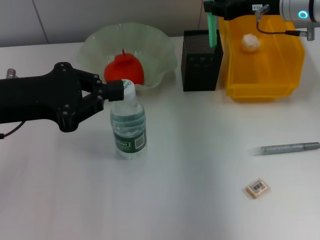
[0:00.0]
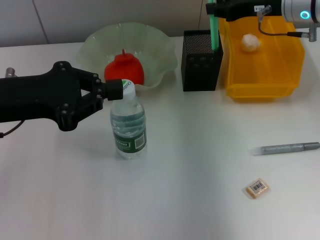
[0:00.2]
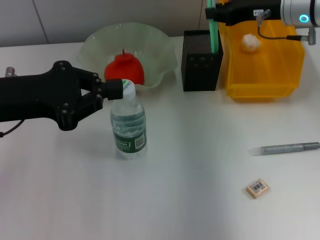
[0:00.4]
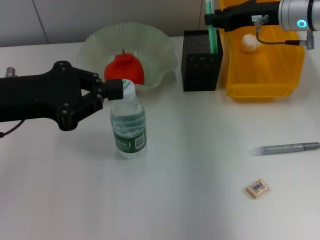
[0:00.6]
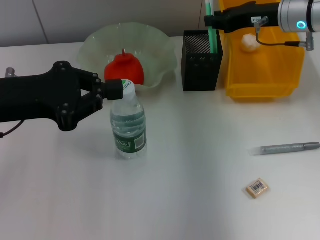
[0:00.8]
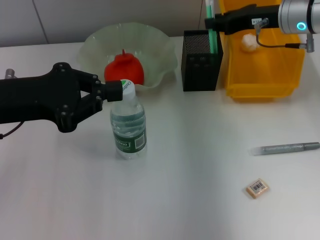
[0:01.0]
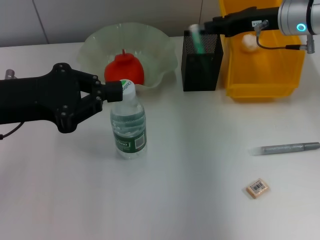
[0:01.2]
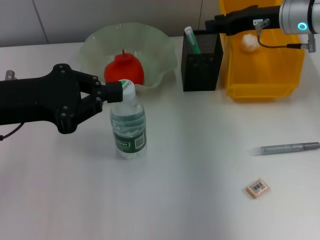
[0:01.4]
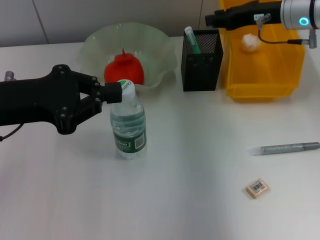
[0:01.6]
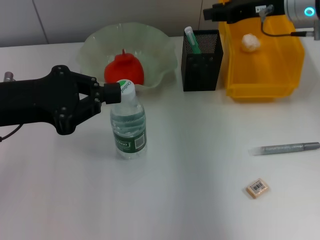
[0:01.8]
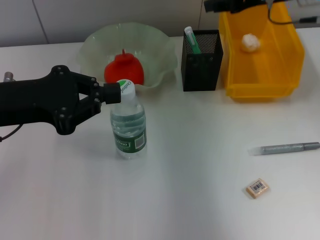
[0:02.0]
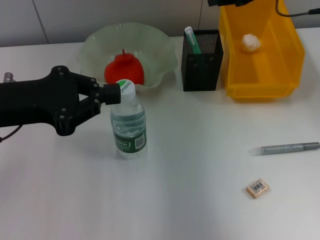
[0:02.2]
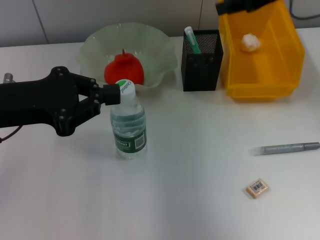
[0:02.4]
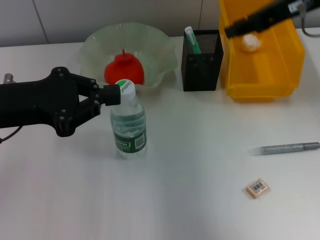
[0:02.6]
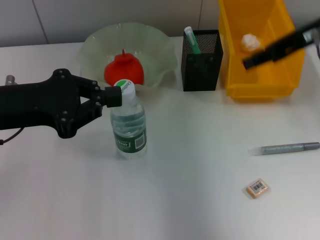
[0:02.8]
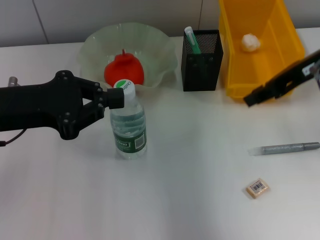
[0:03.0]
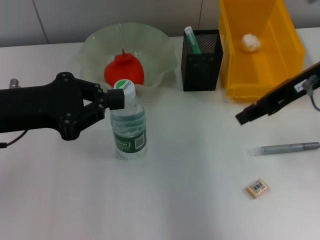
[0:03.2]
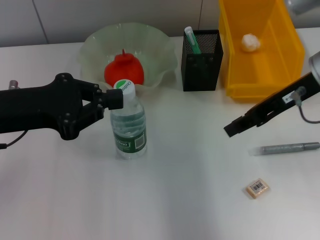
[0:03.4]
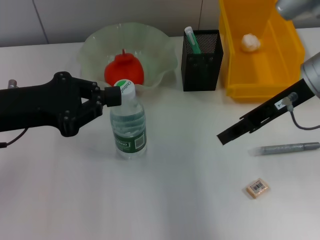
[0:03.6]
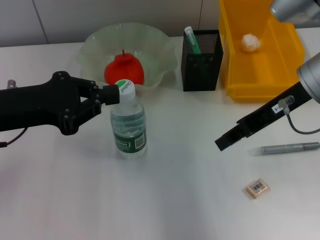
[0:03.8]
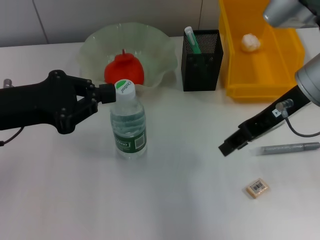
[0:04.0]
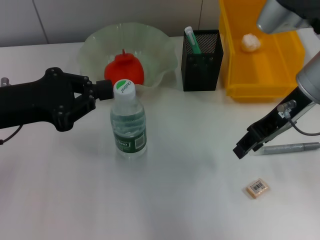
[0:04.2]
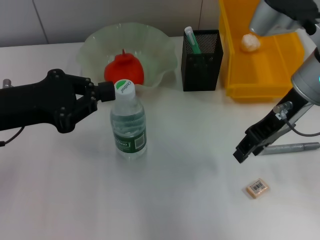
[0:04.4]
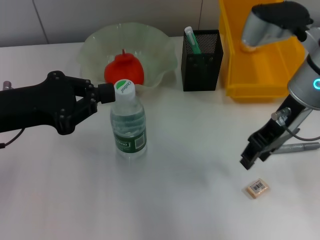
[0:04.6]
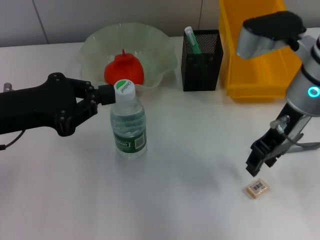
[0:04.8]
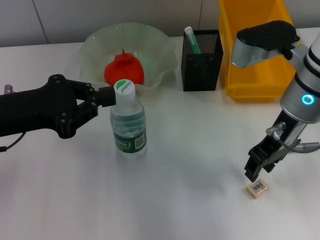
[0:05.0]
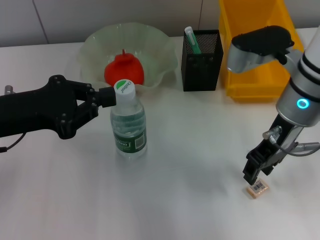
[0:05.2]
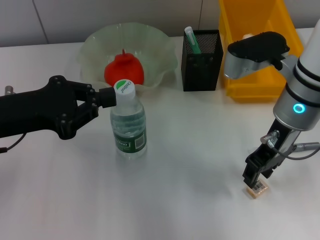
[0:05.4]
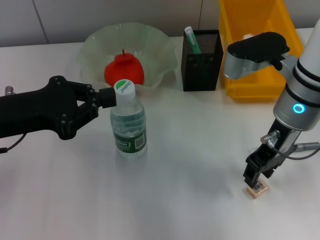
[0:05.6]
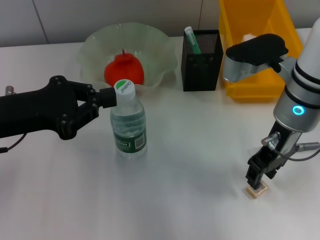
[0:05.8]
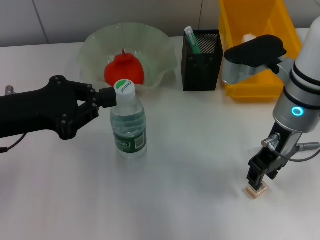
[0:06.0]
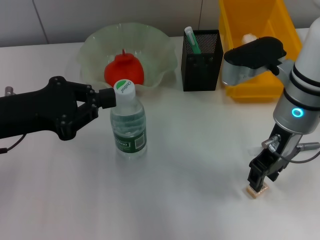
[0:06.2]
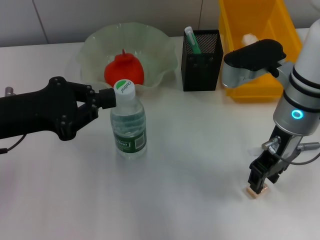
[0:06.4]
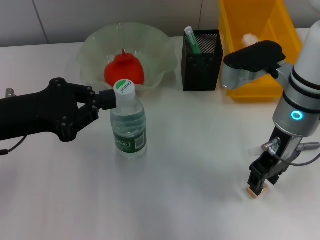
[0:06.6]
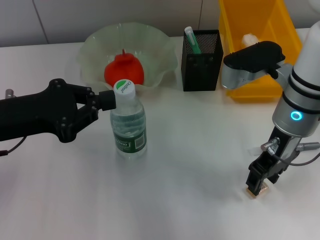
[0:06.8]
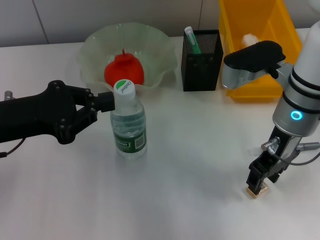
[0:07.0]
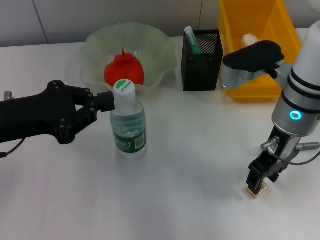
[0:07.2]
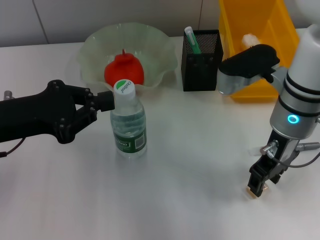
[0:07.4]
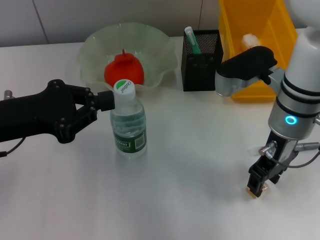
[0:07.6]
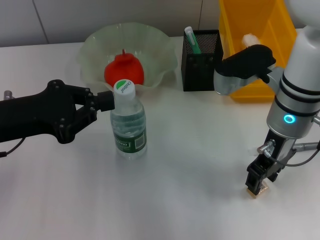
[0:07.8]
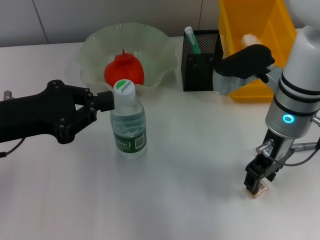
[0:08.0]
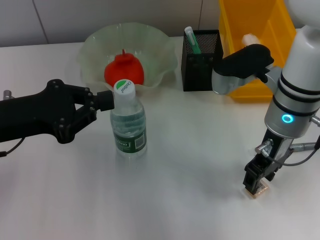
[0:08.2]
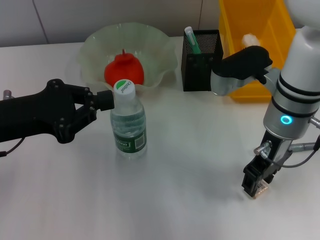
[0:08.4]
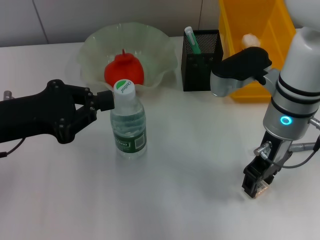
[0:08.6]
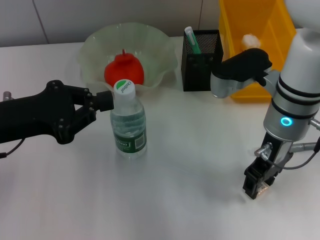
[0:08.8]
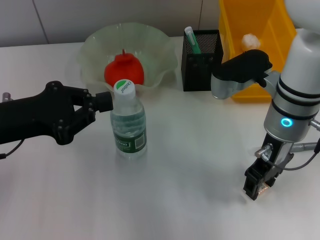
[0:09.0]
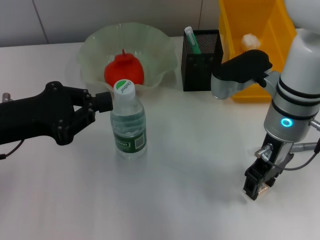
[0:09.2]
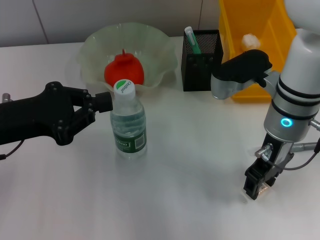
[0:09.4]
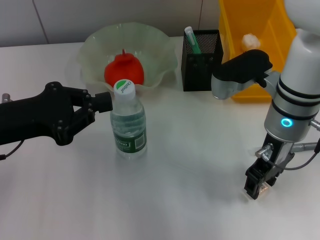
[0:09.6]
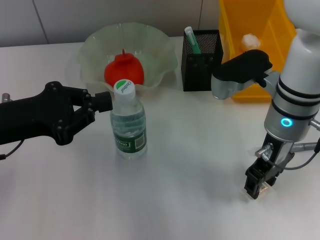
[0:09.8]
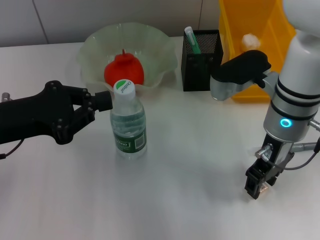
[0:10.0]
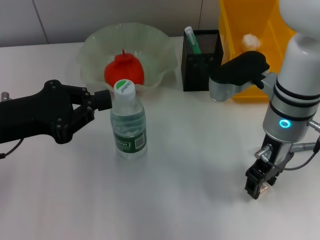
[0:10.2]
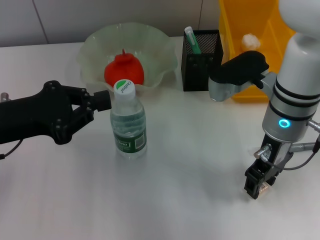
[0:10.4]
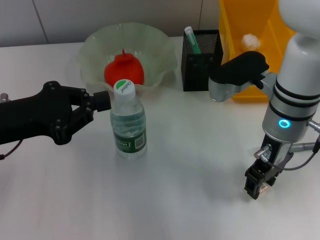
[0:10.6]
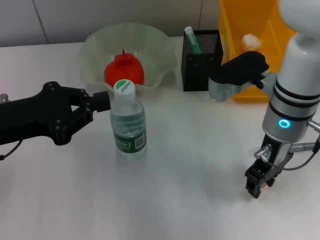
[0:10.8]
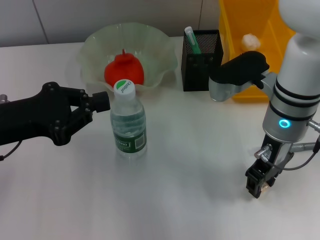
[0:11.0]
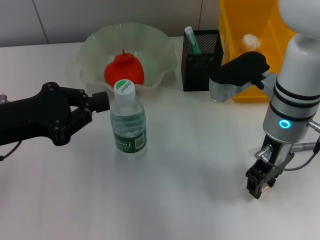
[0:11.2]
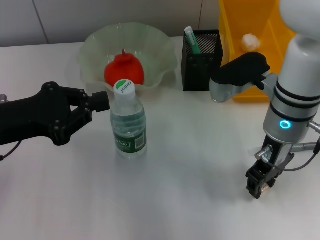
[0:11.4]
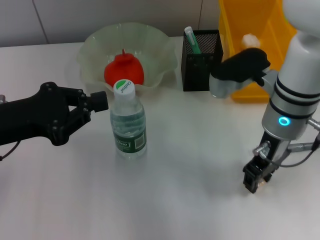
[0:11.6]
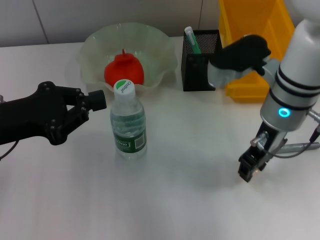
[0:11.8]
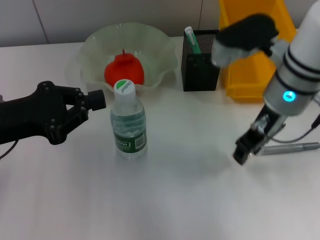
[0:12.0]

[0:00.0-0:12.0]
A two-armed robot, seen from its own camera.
Step, 0:00.0 to 0:02.0: Place the blue utility knife into the pen holder with the right hand.
Step, 0:02.2 to 0:11.2: Grab the eraser with the right hand.
0:00.0 to 0:01.6: The grippers make only small movements.
0:01.6 to 0:03.0: The right gripper is displaced backward and upward by approximately 10 cm.
0:03.0 to 0:04.4: The right gripper moves to the left, about 5 cm.
0:04.4 to 0:06.0: The grippers make only small movements.
0:06.0 to 0:07.6: There are only small adjustments of the grippers.
0:07.6 to 0:10.4: Both grippers stay put.
0:10.4 to 0:12.0: There are only small adjustments of the grippers.

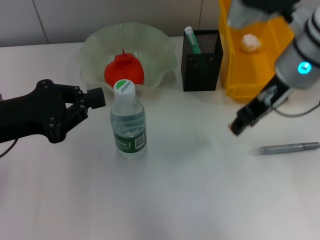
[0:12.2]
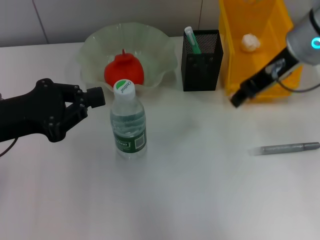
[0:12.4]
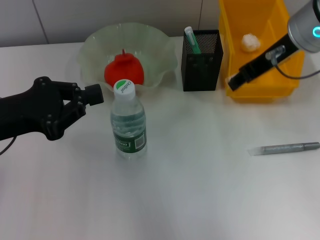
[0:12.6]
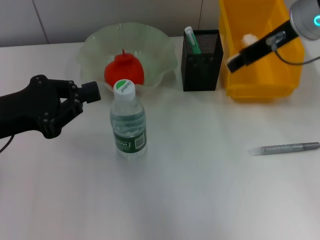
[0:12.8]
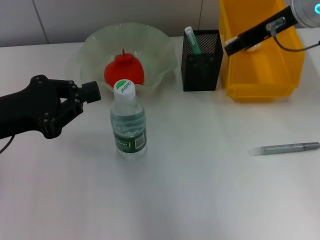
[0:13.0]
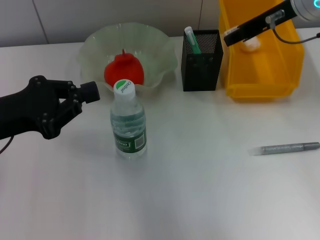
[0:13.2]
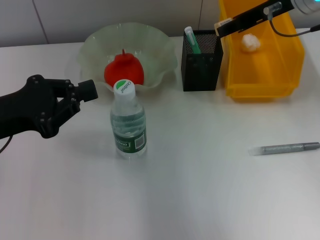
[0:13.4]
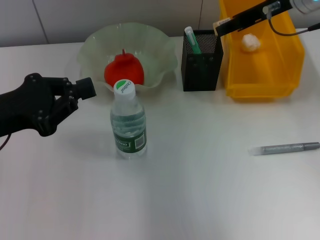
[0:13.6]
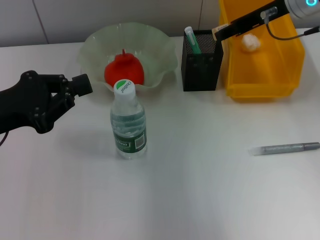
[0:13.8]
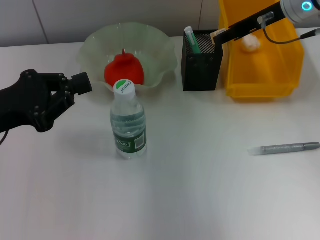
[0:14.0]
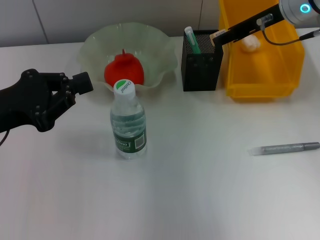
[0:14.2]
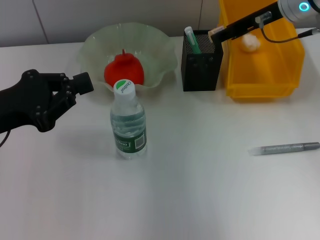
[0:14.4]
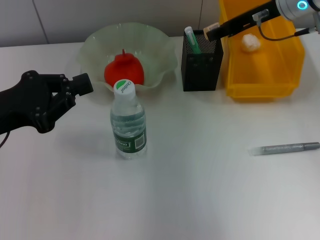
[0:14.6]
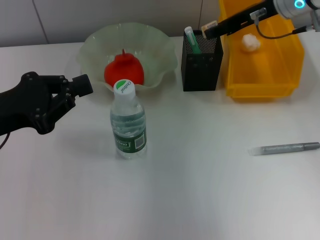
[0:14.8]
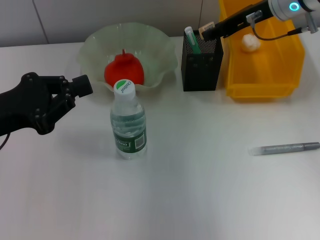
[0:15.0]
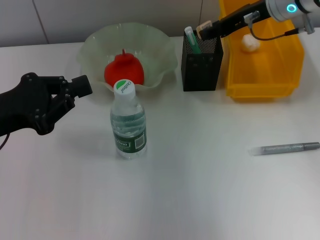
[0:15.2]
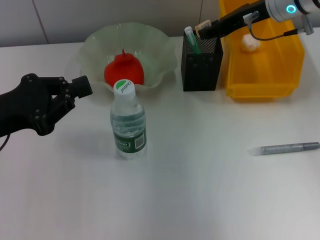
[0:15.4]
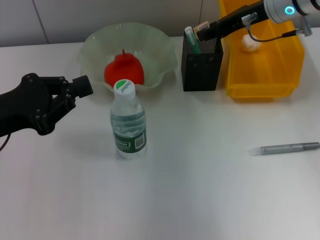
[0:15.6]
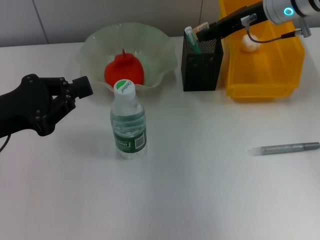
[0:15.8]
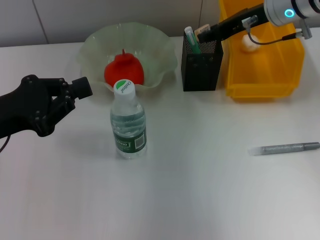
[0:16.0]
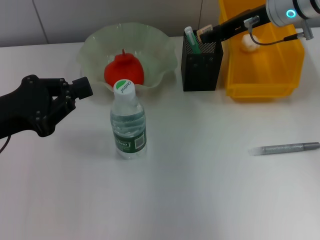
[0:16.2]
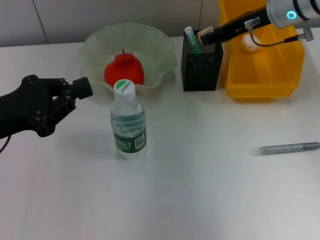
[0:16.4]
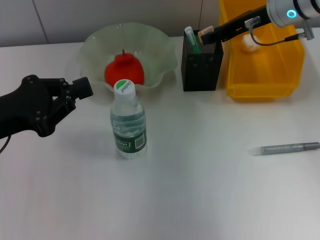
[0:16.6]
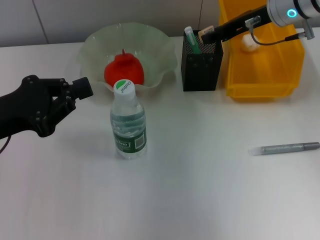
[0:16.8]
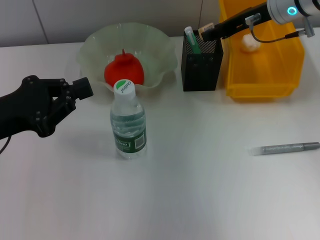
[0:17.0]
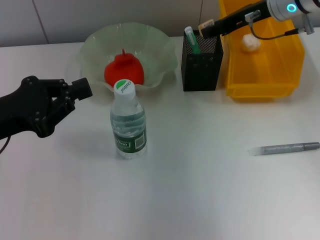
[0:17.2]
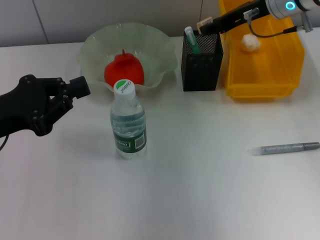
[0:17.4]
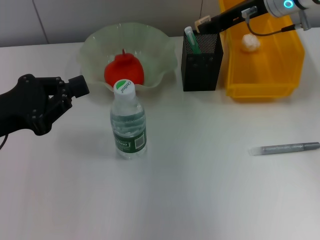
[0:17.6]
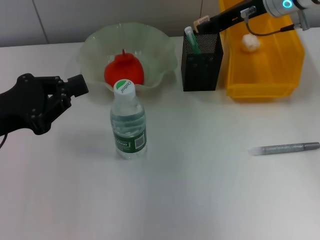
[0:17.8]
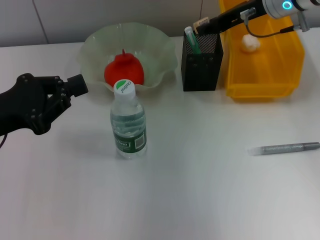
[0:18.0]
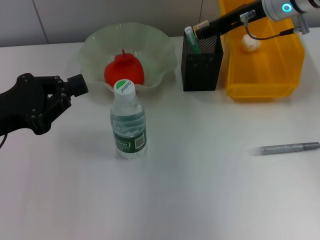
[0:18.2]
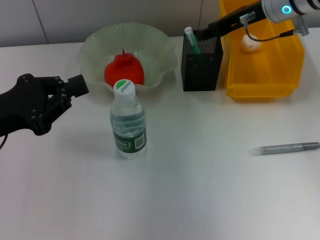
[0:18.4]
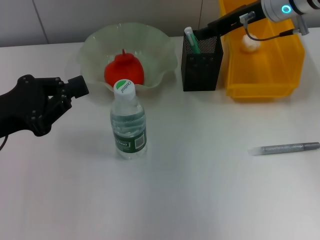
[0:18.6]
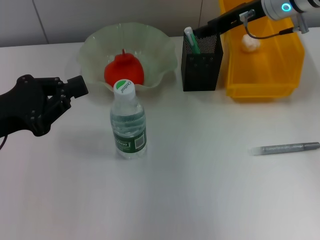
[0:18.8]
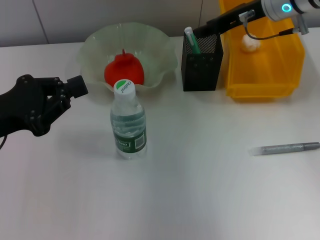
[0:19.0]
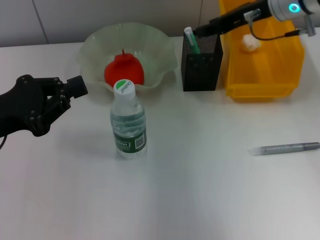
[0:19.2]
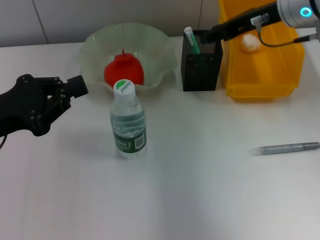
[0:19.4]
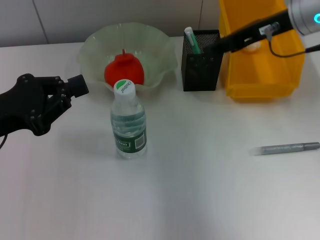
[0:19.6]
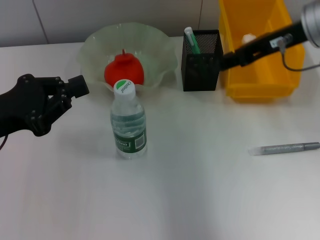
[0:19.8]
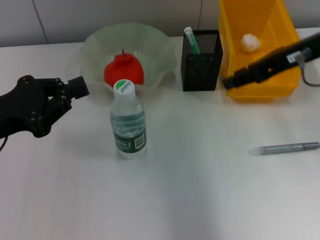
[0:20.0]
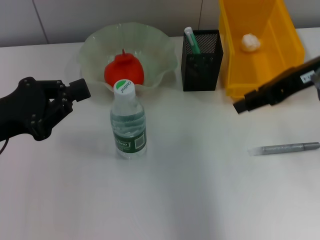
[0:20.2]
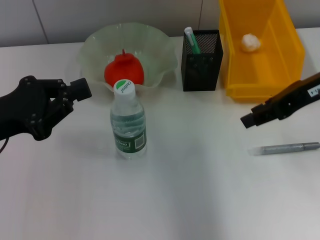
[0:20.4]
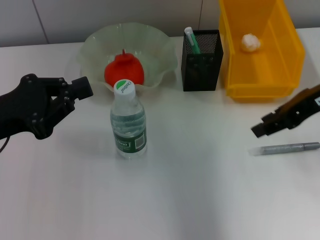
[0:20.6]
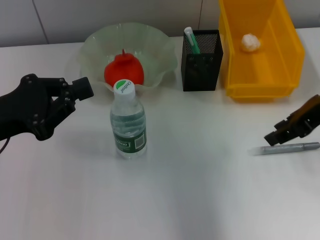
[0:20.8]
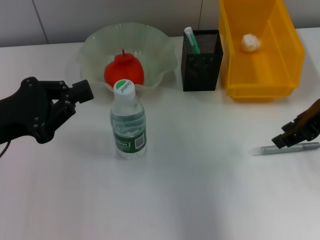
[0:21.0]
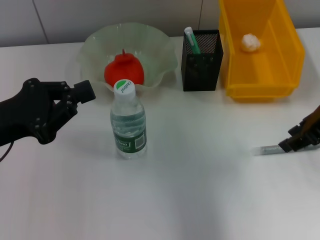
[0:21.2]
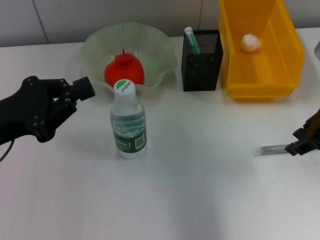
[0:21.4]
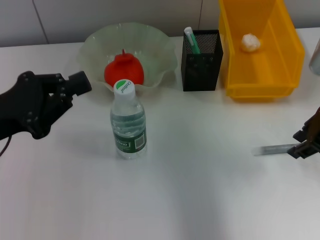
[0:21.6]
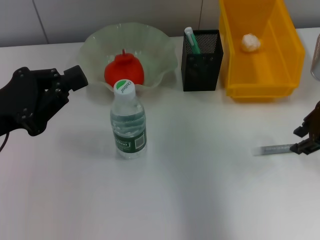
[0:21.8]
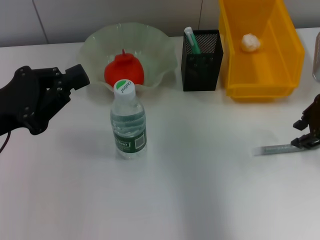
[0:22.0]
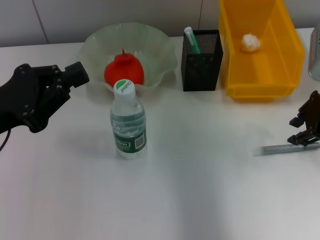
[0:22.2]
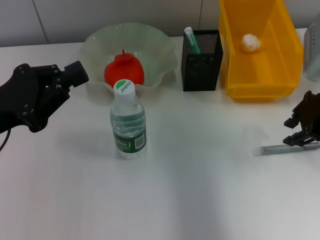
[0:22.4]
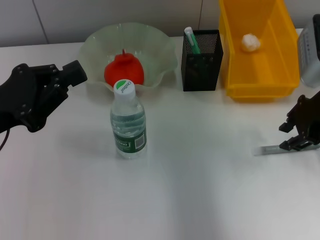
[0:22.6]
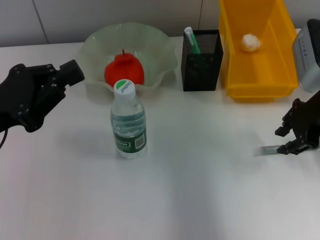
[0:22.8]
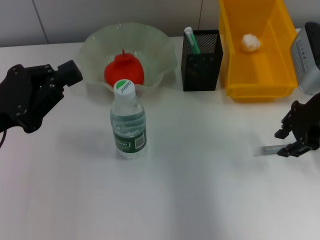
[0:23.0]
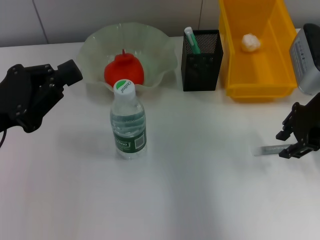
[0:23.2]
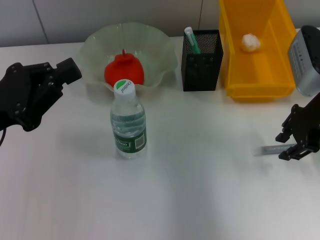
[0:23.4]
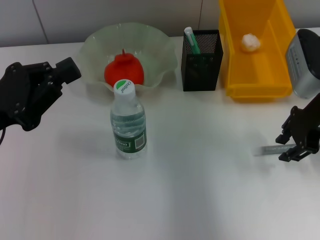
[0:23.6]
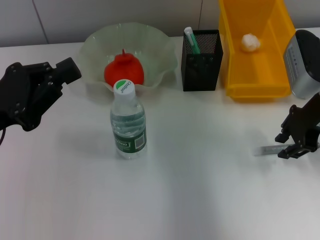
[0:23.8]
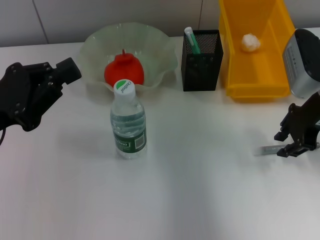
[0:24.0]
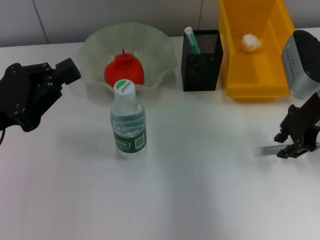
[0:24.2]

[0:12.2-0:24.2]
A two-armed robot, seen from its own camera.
Step, 0:12.2 to 0:19.0: Put the eraser into the pen holder with the right hand.
0:12.2 to 0:13.8: The right gripper travels forward by roughly 10 cm.
0:13.8 to 0:15.2: The grippers make only small movements.
0:15.2 to 0:18.2: The two grippers keep their place.
0:18.2 to 0:19.8: The right gripper shifts about 10 cm backward.
0:19.8 to 0:21.2: The right gripper is displaced backward by some 5 cm.
0:21.2 to 0:22.6: The right gripper ends up about 5 cm from where it was.
0:22.6 to 0:24.2: The grippers move only a little.
